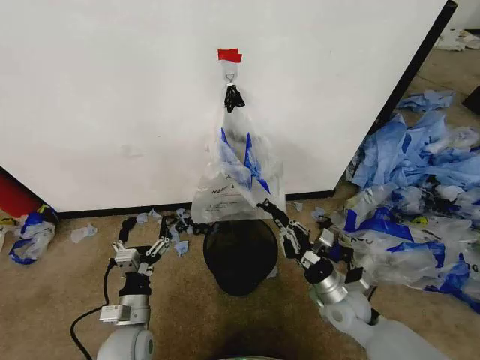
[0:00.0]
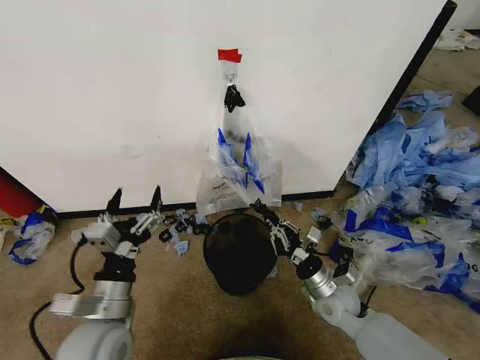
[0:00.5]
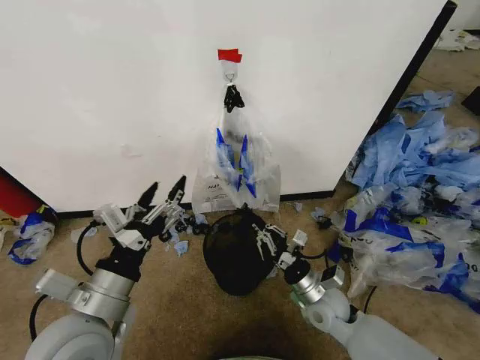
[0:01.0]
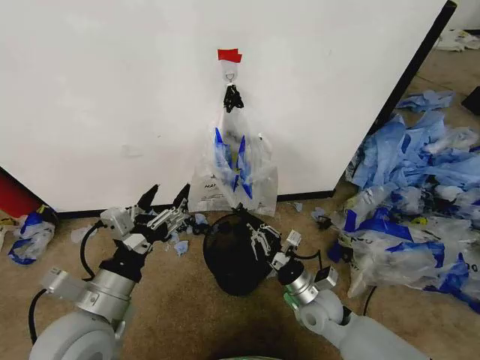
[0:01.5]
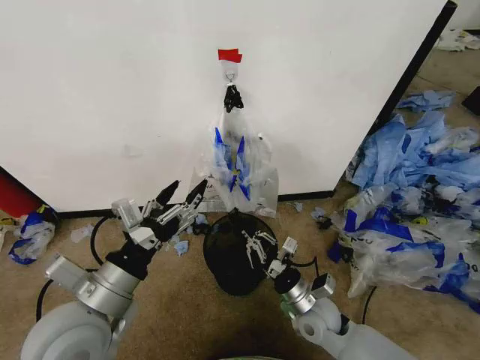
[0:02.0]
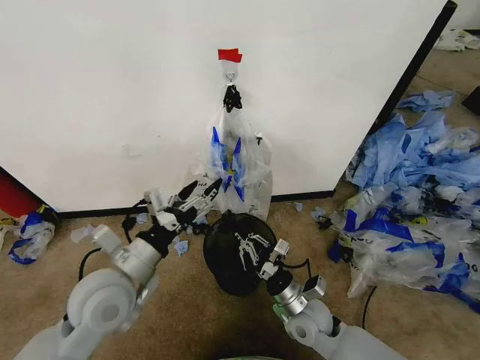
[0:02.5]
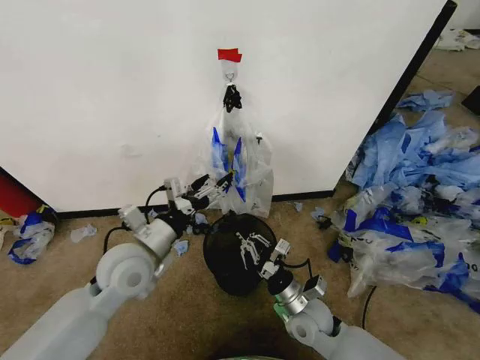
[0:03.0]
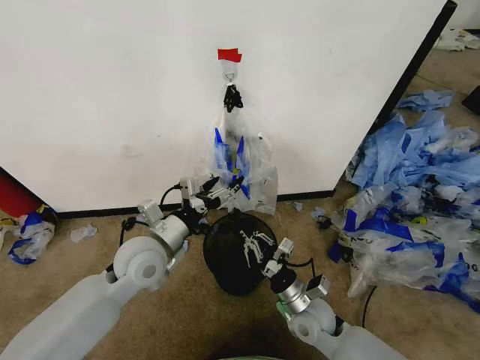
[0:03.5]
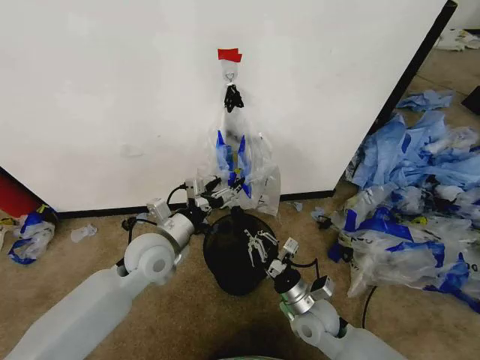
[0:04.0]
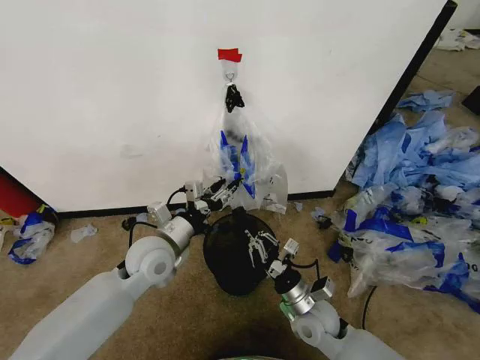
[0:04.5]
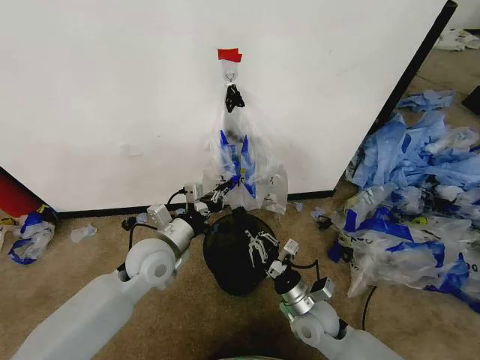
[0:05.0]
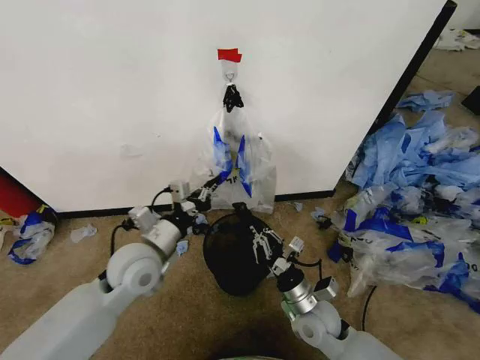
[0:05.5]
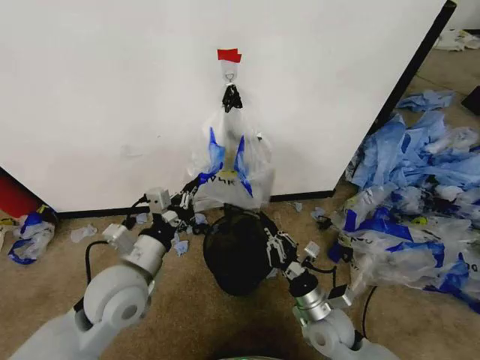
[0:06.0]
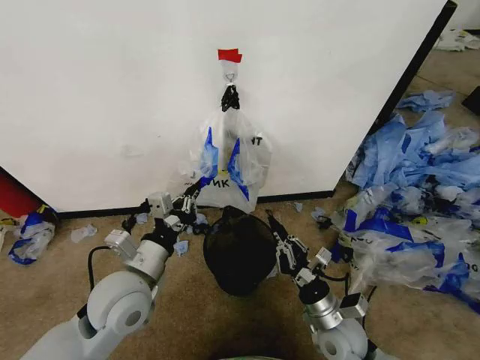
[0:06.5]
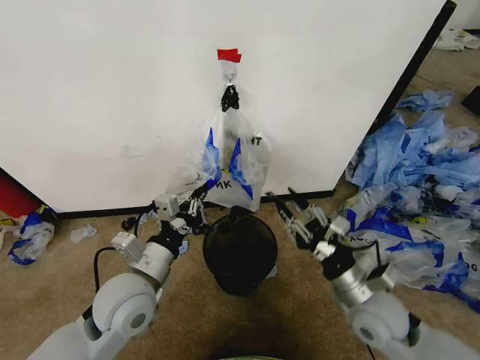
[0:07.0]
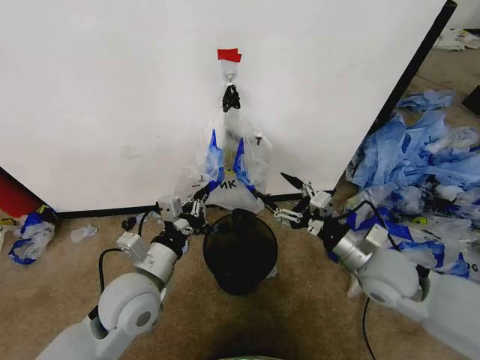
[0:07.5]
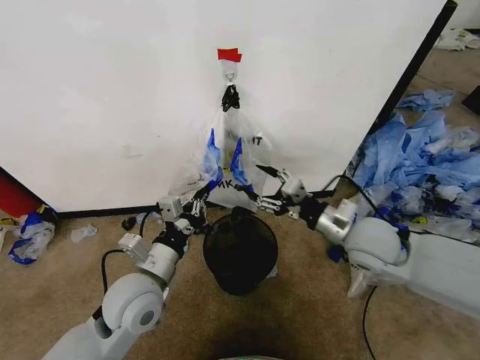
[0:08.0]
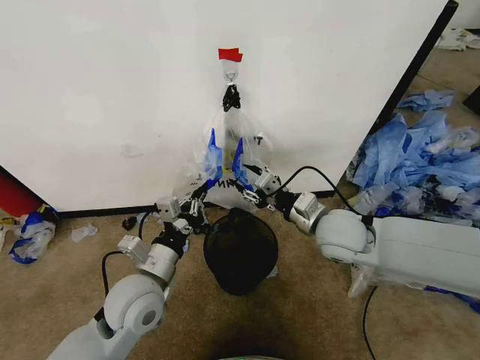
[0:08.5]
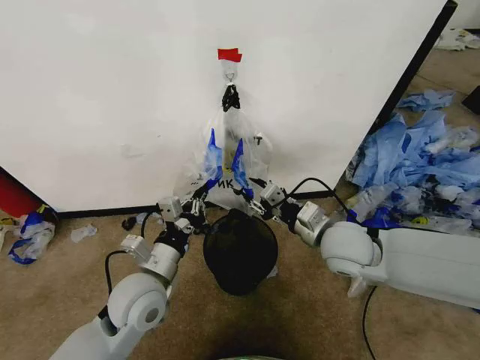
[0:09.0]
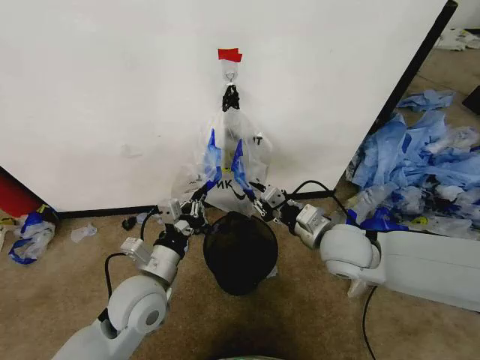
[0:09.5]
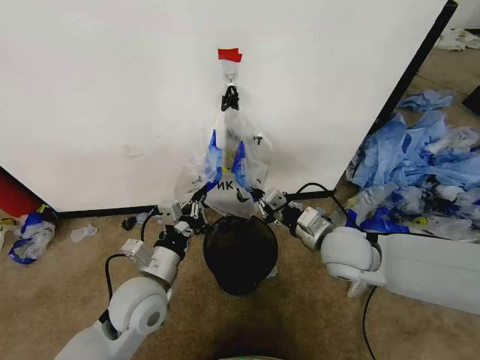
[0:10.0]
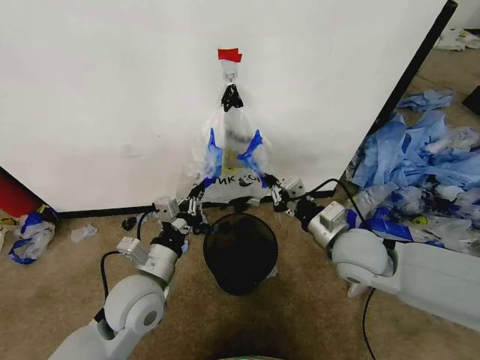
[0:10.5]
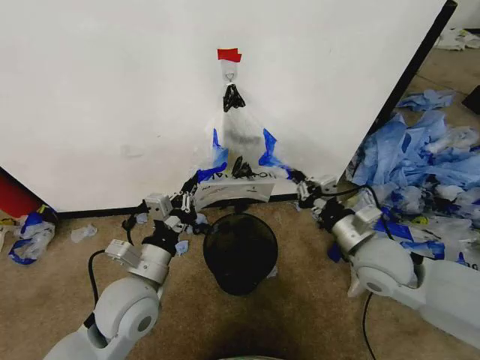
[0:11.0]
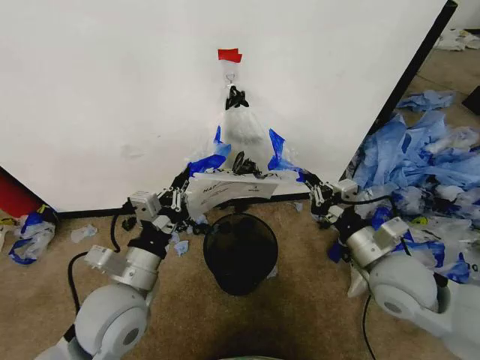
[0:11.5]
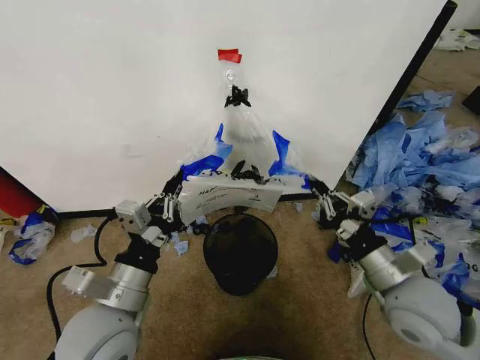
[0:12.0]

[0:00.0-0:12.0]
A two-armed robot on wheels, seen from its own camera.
Task of the whole recording: Pick up the garbage bag from the wall and place it over the trash bin.
0:00.0 to 0:02.0: The left gripper moves upward, roughly 20 cm, while the right gripper is displaced to the left by about 5 cm.
0:02.0 to 0:04.0: The left gripper is displaced forward by some 15 cm.
0:04.0 to 0:06.0: The left gripper heads backward, covering roughly 10 cm, and closes its fingers.
0:06.0 to 0:08.0: The right gripper shifts about 20 cm upward and forward, and opens its fingers.
0:08.0 to 0:10.0: The right gripper moves about 5 cm, and closes up.
0:10.0 to 0:12.0: The right gripper goes roughly 15 cm backward and to the right; the left gripper heads backward and upward, covering about 10 cm.

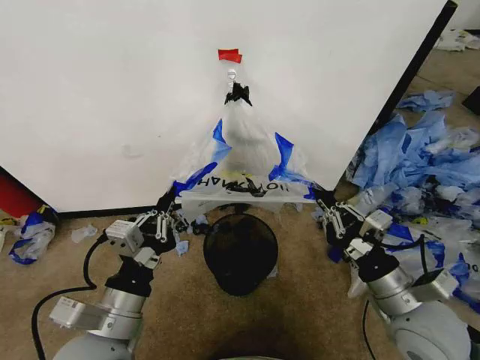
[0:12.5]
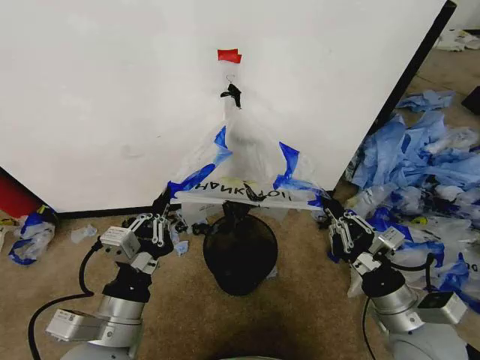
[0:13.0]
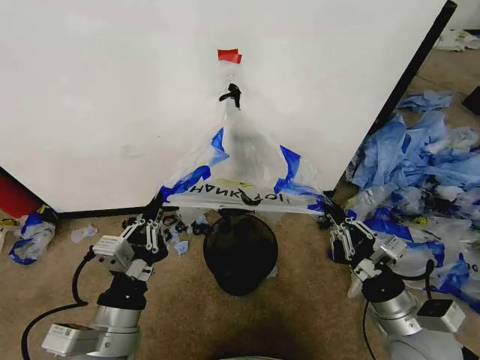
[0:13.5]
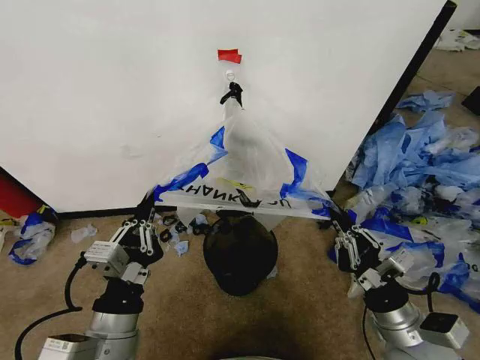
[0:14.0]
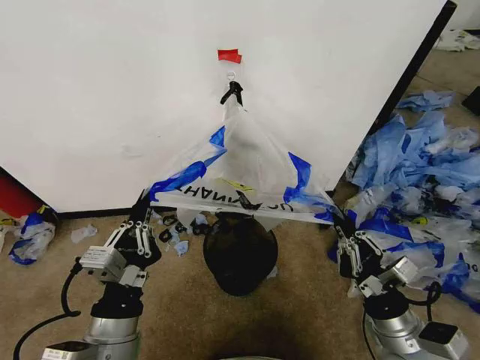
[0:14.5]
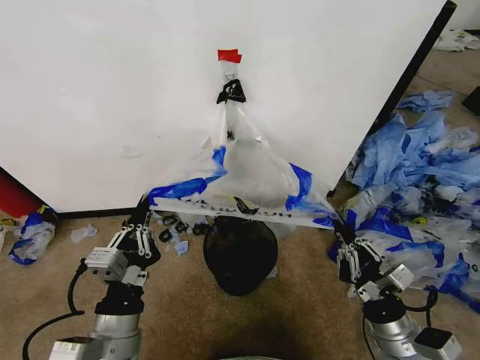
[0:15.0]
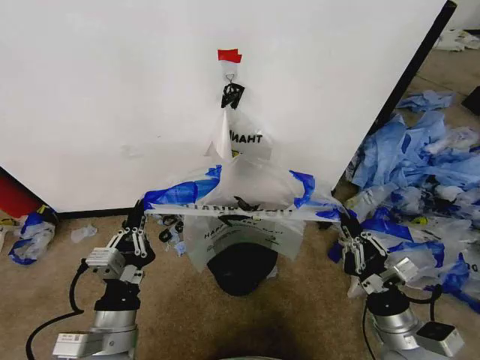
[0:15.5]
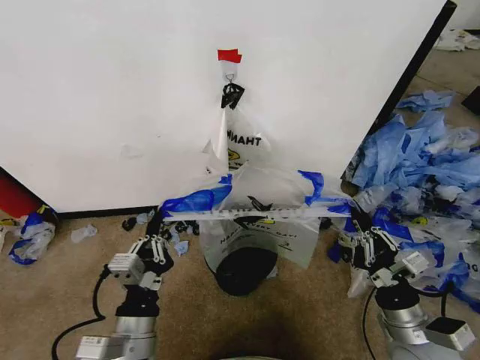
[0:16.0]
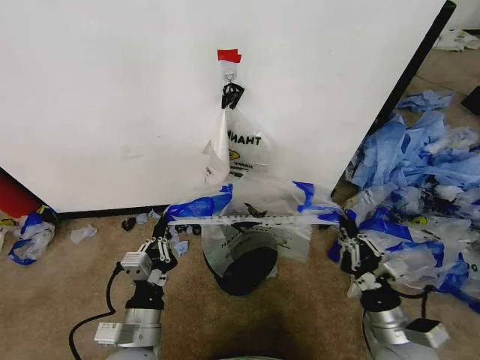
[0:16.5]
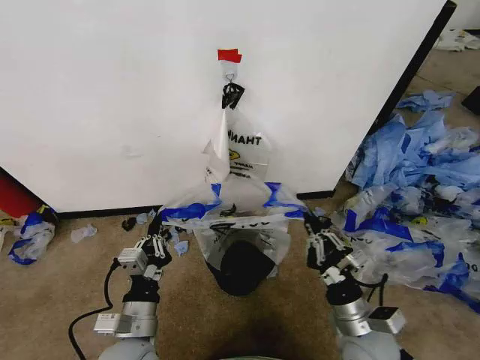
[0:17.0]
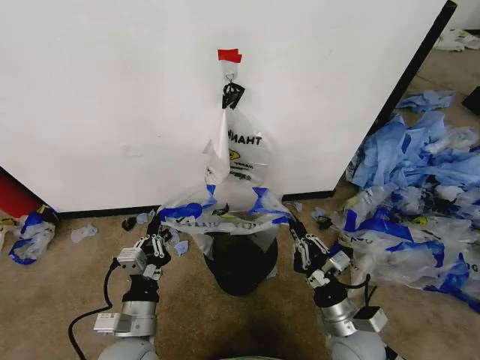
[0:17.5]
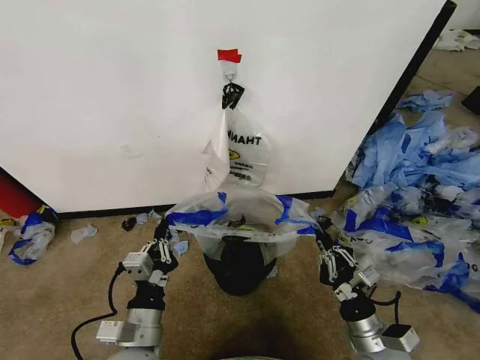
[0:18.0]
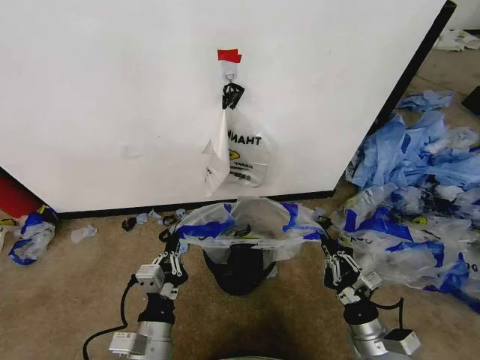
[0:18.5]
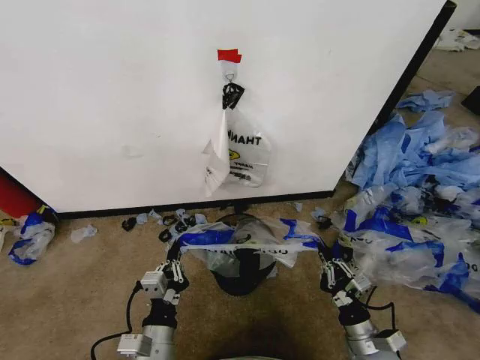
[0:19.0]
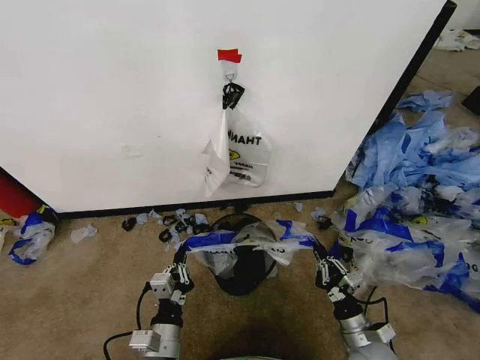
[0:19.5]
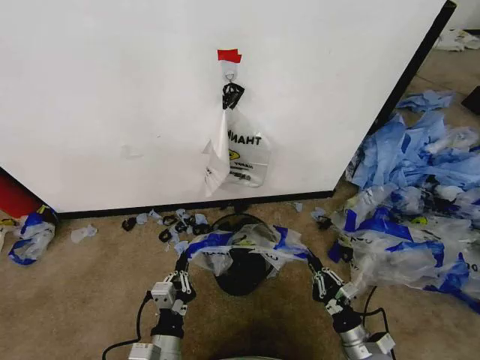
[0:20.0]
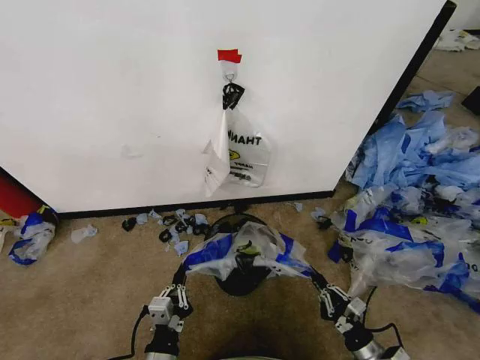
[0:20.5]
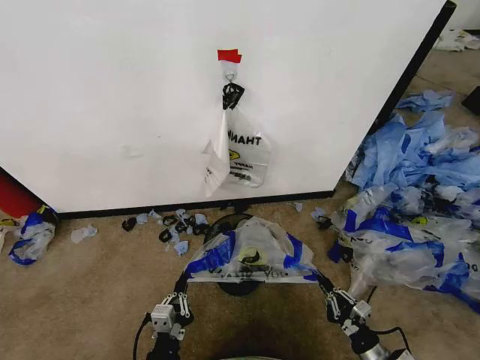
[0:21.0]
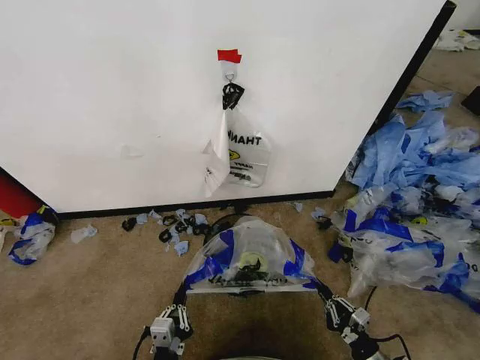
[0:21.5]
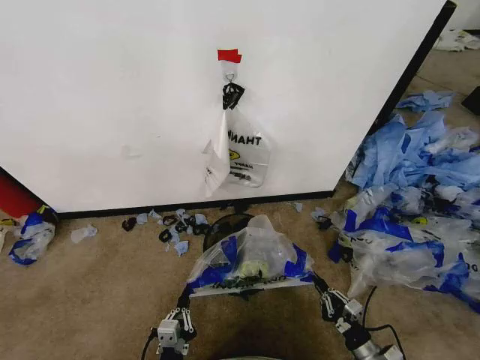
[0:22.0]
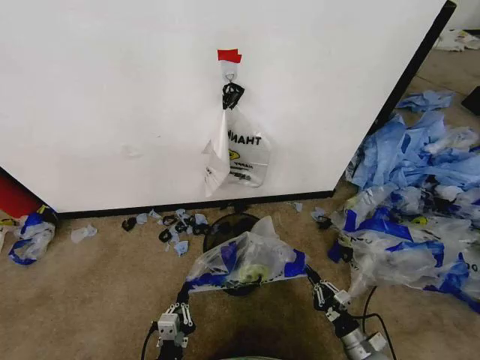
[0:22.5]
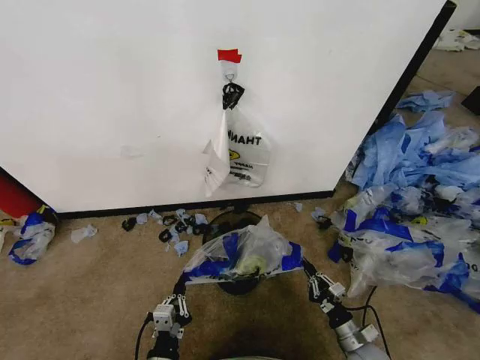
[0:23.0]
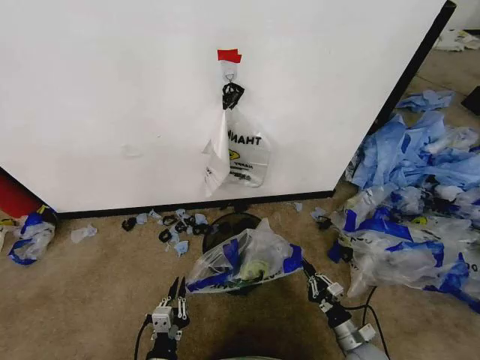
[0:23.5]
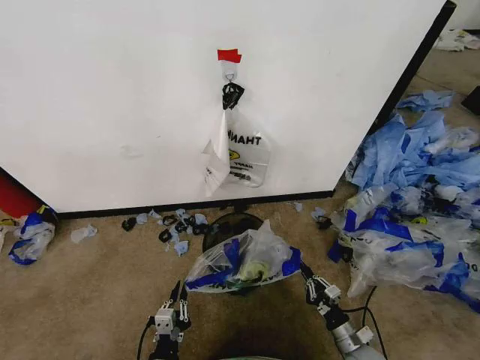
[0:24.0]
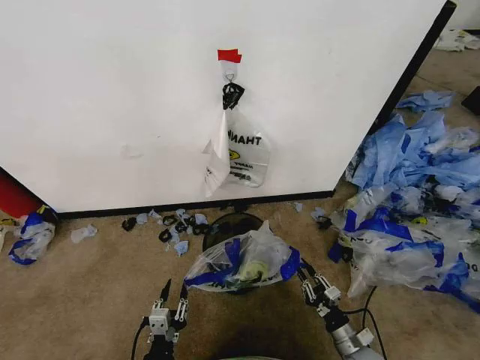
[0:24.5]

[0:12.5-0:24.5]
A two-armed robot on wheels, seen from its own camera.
Task of the whole recording: Pick up the garbage bag from the wall and place it over the trash bin.
0:12.5 to 0:14.5: The right gripper shifts some 5 cm downward.
0:14.5 to 0:16.5: The left gripper travels downward by about 10 cm.
0:16.5 to 0:18.5: The right gripper travels to the left and back again, some 10 cm each way.
0:18.5 to 0:20.5: The two grippers go about 10 cm downward.
0:20.5 to 0:22.5: The grippers both shift downward by some 5 cm.
0:22.5 to 0:24.5: The left gripper opens.

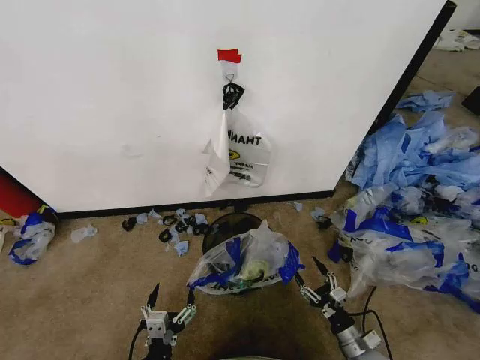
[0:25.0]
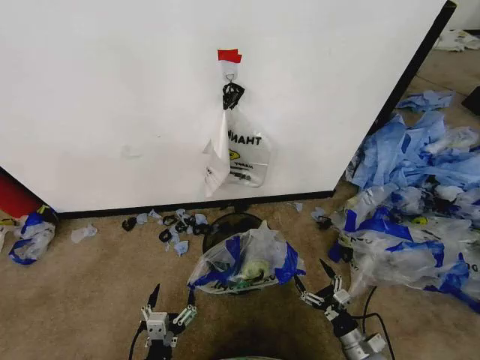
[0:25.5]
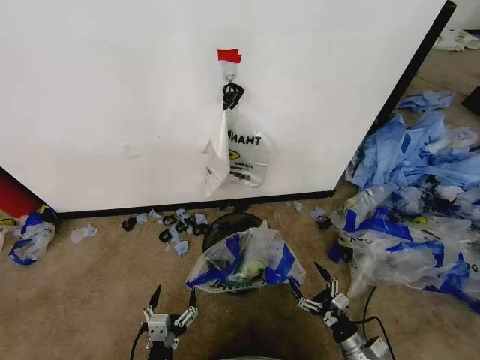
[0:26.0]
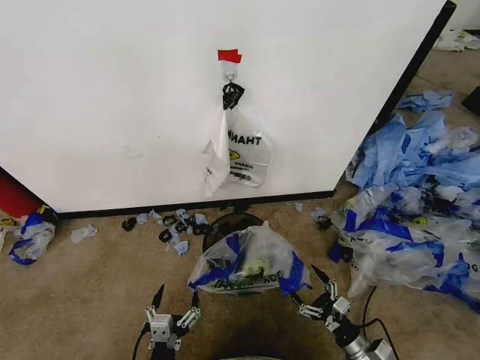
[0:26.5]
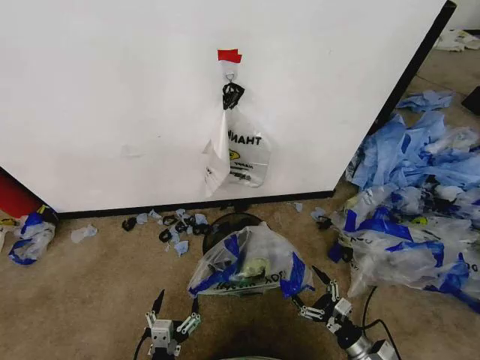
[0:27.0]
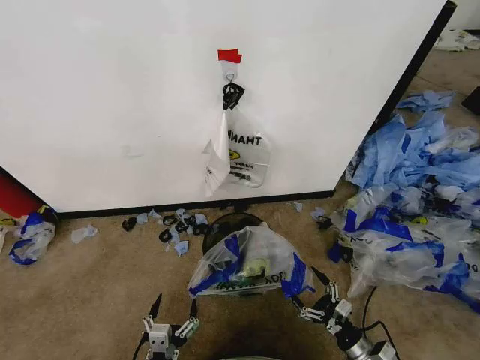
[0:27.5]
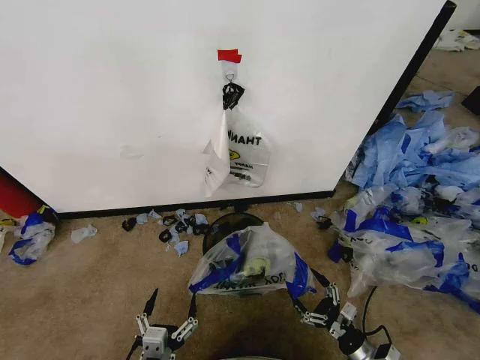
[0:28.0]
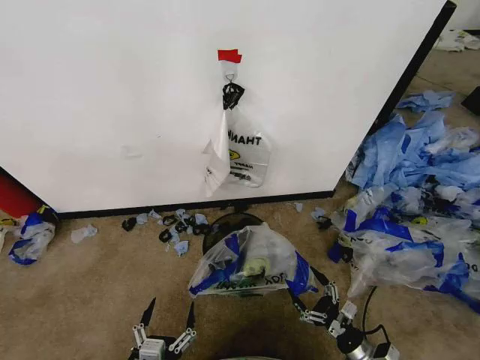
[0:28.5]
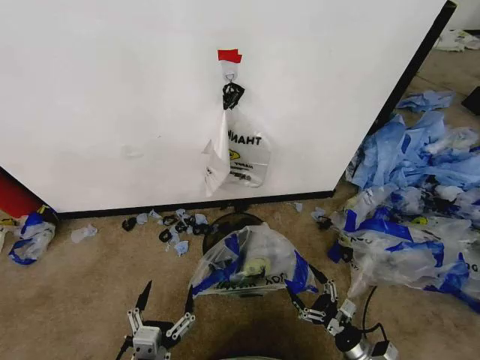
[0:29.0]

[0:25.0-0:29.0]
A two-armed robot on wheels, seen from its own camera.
Task of the whole recording: Pick up the garbage bag from the wall and place it over the trash bin.
0:25.0 to 0:27.0: The grippers move only a little.
0:27.0 to 0:29.0: The left gripper is displaced upward by approximately 5 cm.
